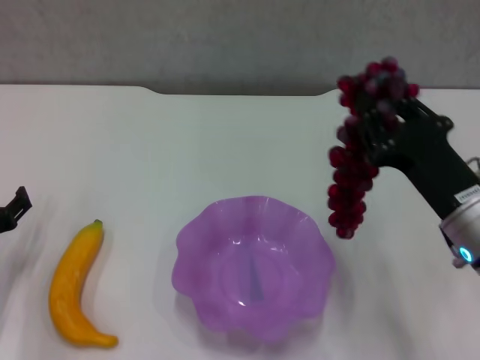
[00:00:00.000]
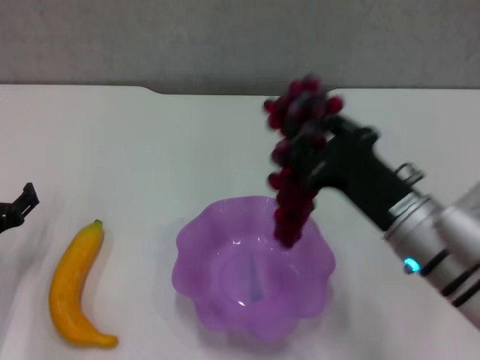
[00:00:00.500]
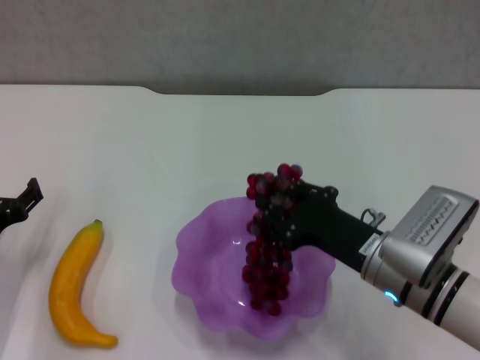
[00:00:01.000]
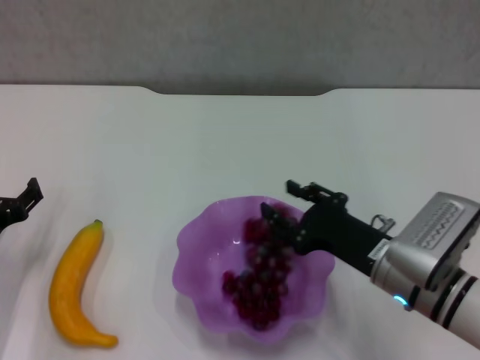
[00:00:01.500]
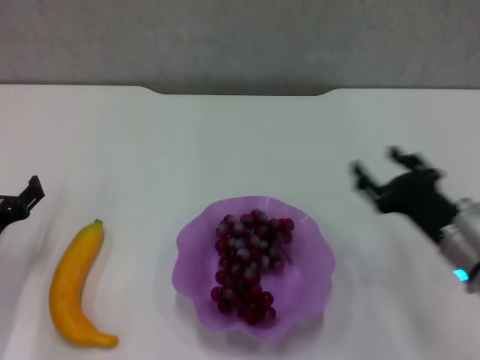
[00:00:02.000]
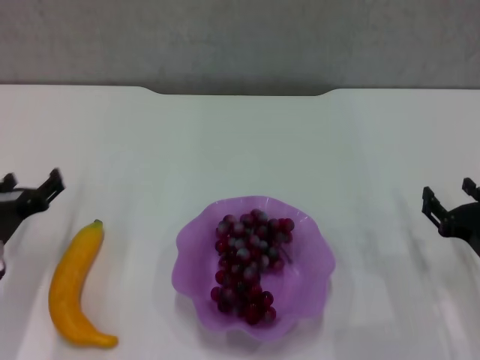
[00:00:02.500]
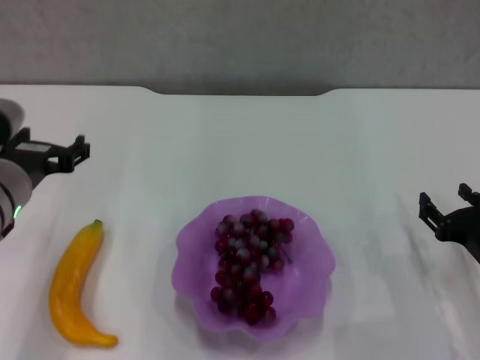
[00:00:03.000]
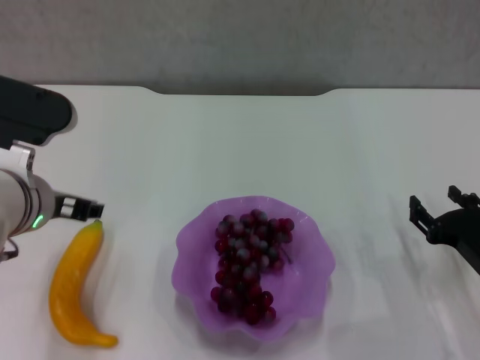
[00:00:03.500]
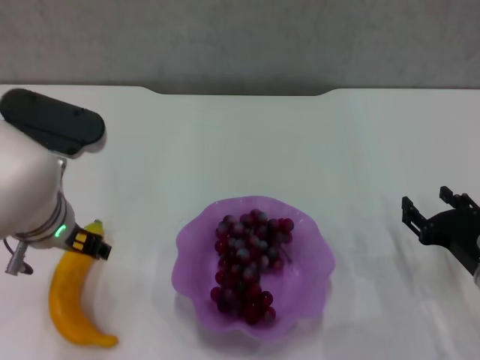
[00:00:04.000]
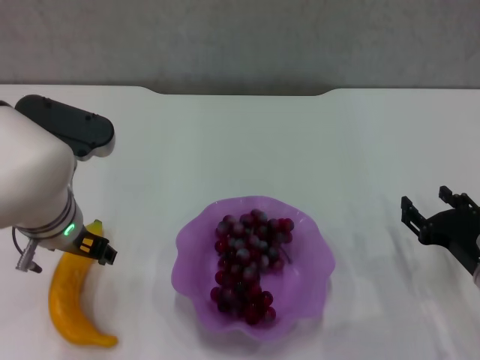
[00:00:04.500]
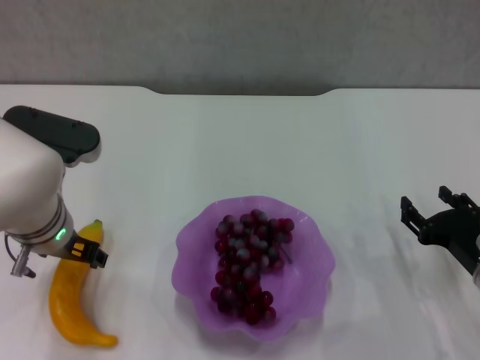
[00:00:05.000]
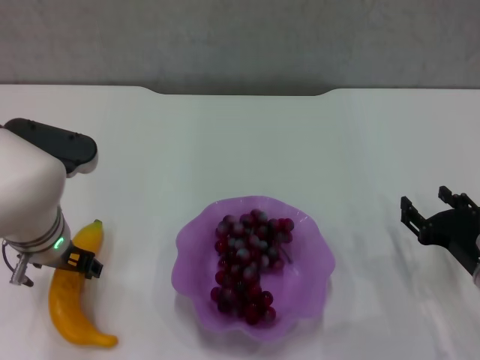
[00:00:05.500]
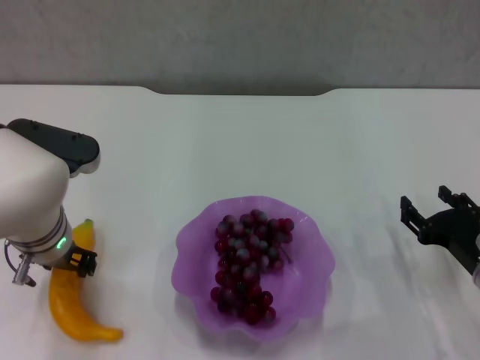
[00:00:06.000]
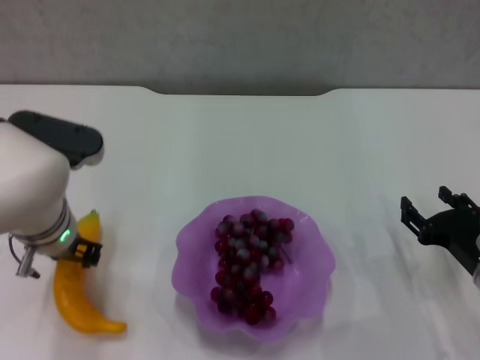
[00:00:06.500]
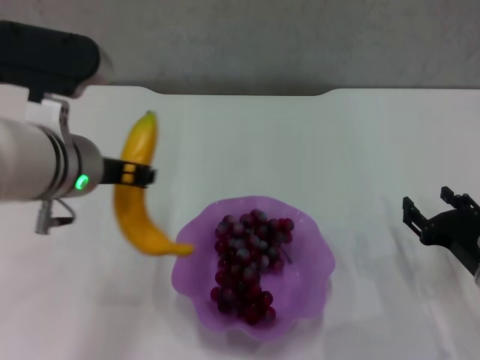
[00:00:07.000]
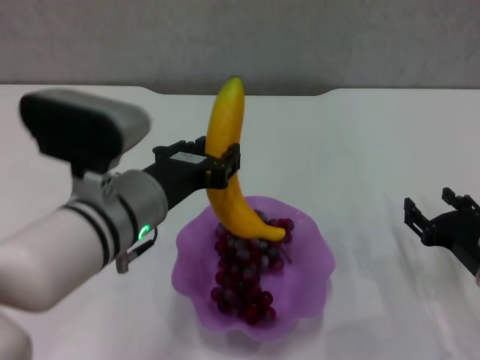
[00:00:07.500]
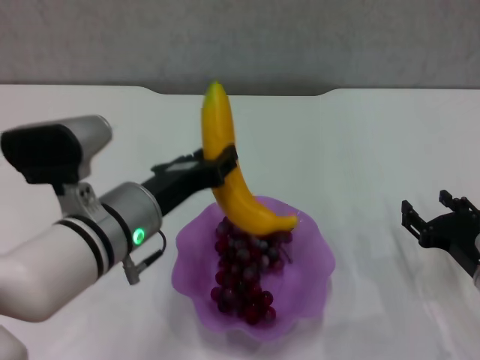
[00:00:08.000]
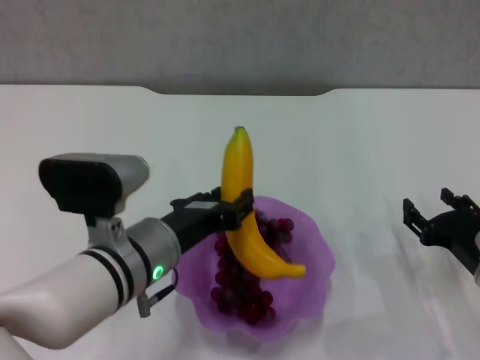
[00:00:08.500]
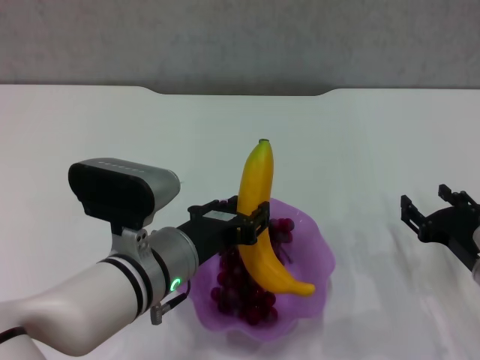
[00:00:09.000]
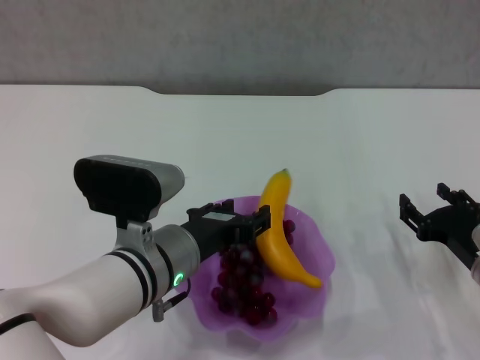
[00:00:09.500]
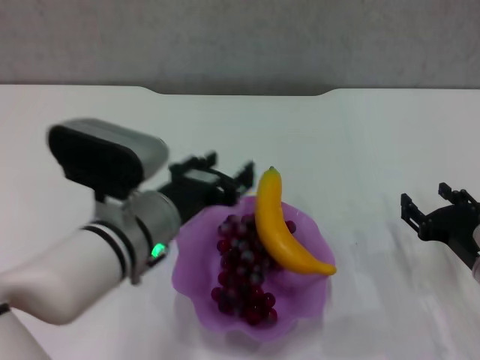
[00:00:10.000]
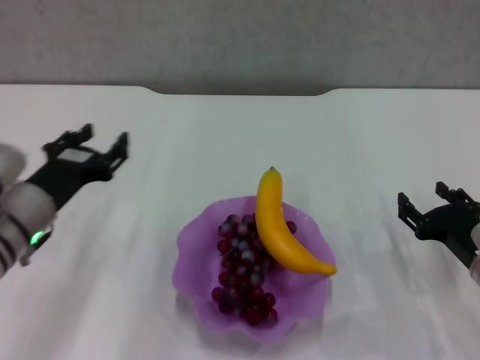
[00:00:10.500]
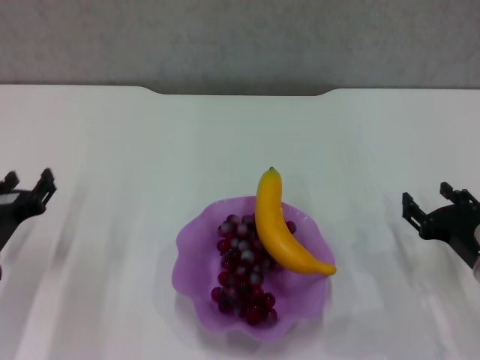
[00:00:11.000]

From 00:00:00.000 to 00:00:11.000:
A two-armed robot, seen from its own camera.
Step, from 00:00:02.000 to 00:00:06.000: Grasp the banana with left gripper.
Step, from 00:00:06.500 to 00:00:09.500: Place the banana in the purple plate with left gripper.
From 00:00:00.000 to 00:00:02.000: The right gripper is displaced downward by roughly 5 cm, and opens its fingers.
From 00:00:02.000 to 00:00:03.500: The left gripper goes approximately 20 cm upward and to the right; the right gripper travels to the right by some 5 cm.
From 00:00:03.500 to 00:00:05.500: The left gripper moves downward, roughly 5 cm.
From 00:00:05.500 to 00:00:07.500: The left gripper goes about 10 cm to the right, backward and upward, and closes.
From 00:00:07.500 to 00:00:09.000: The left gripper moves downward, roughly 5 cm.
From 00:00:09.000 to 00:00:11.000: The left gripper shifts roughly 20 cm to the left.

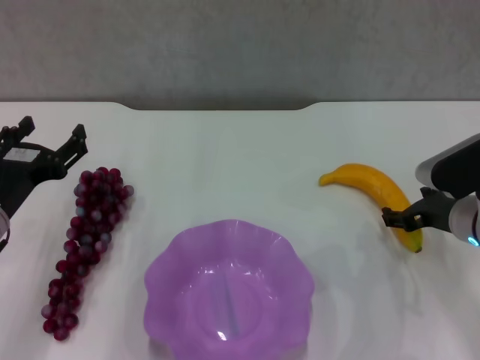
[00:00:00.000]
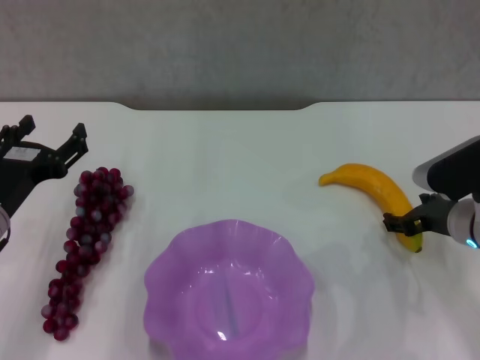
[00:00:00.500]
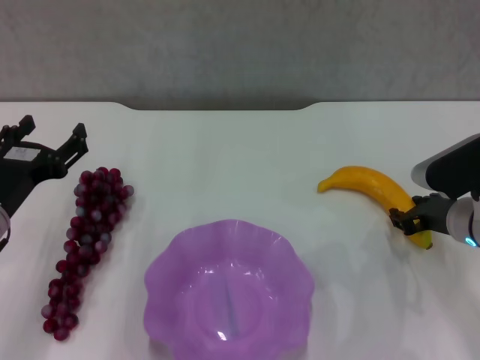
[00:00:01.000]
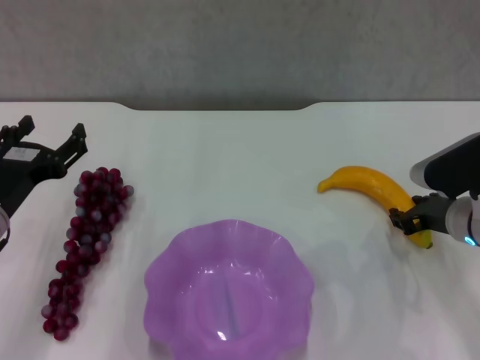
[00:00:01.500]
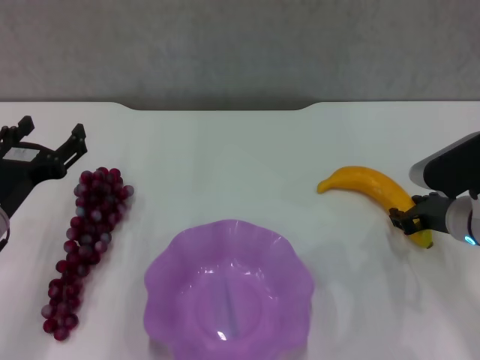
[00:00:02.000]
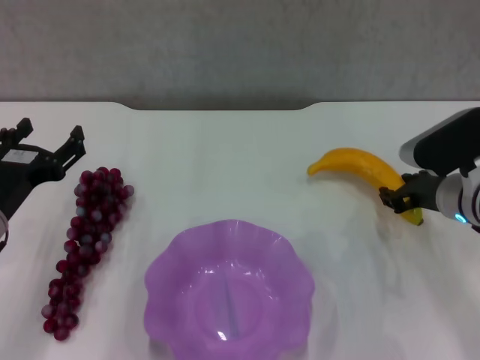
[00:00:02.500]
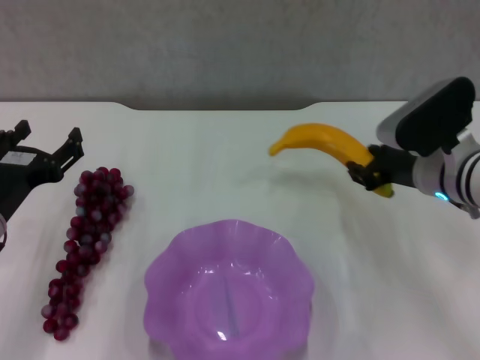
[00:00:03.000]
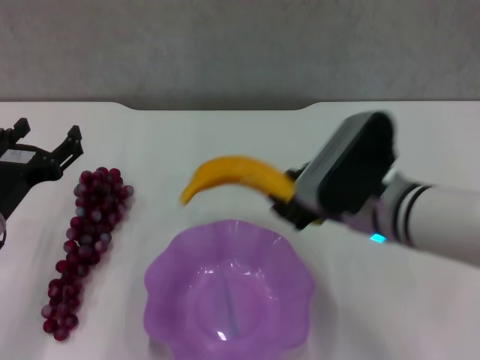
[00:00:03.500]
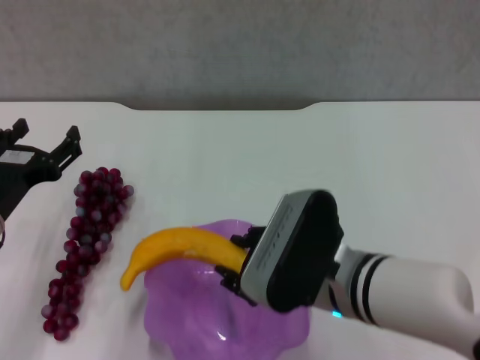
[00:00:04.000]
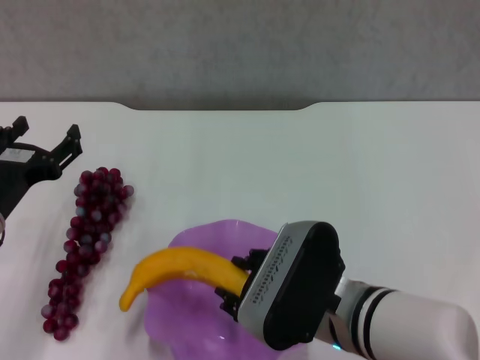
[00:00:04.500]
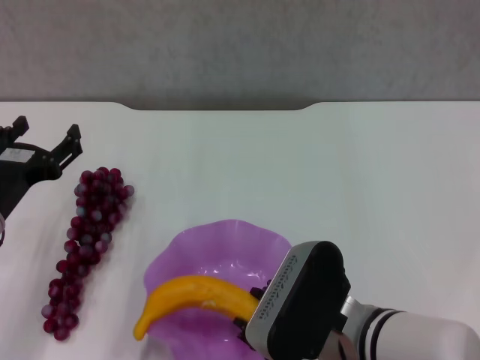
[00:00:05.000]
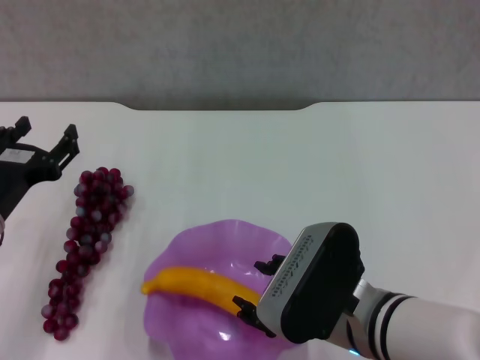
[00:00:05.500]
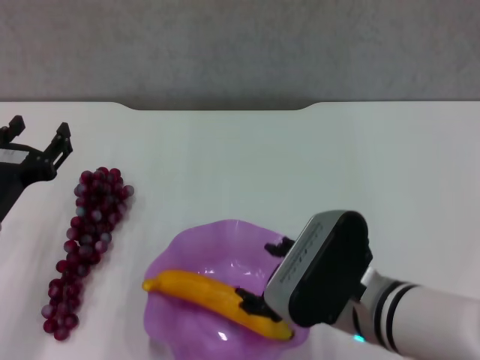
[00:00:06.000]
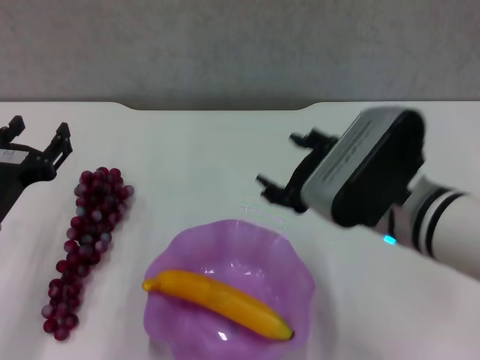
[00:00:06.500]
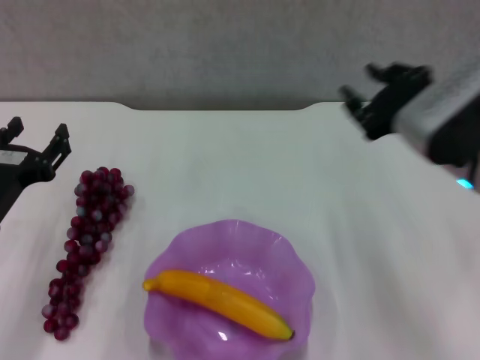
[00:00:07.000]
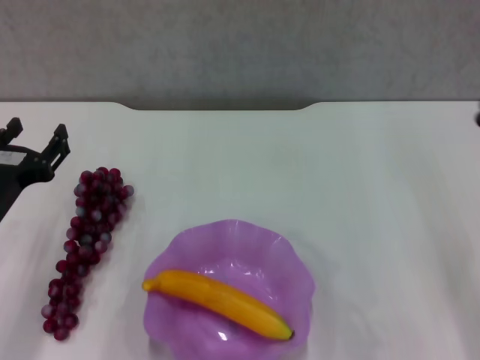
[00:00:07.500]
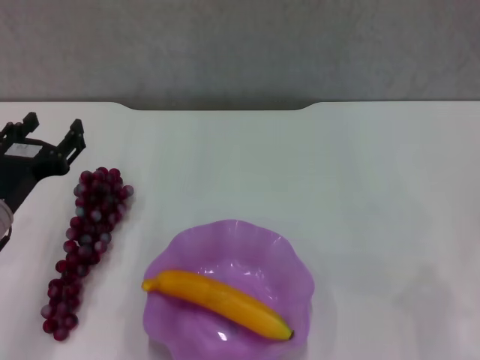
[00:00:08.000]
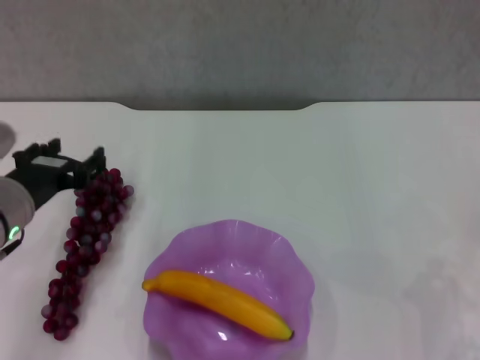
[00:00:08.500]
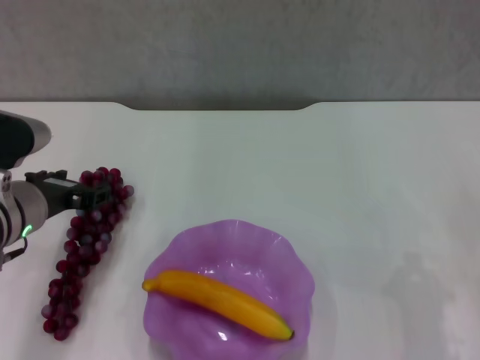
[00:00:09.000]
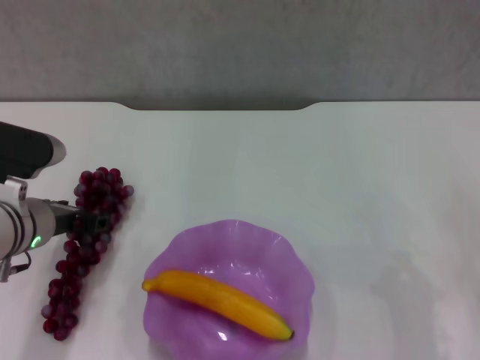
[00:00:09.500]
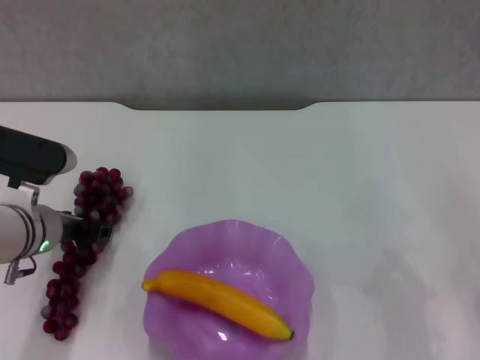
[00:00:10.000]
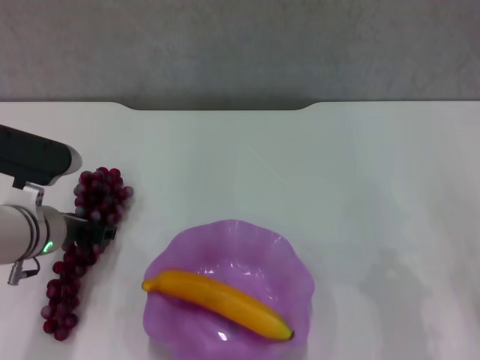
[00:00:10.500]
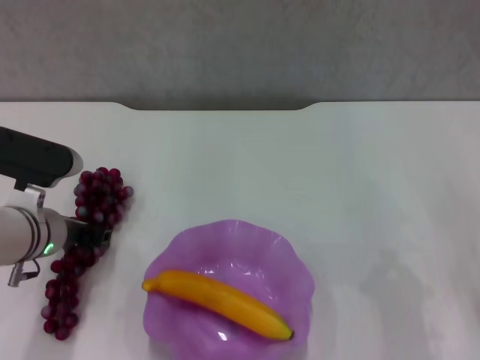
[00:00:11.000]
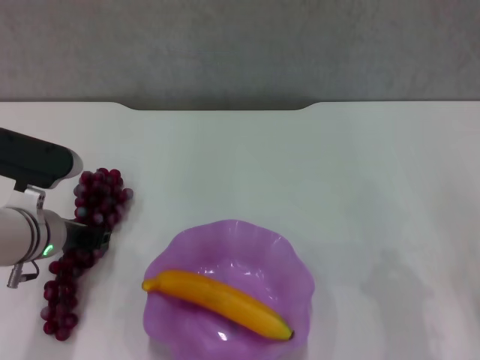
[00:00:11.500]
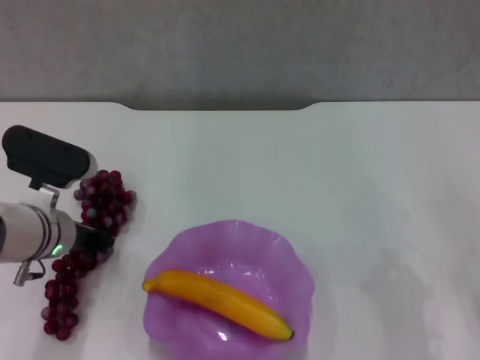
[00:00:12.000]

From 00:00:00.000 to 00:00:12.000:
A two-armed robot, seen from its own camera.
Step, from 00:00:00.000 to 00:00:01.500: Grasp the banana with right gripper.
Step, from 00:00:02.000 to 00:00:05.500: Place the banana in the purple plate with right gripper.
From 00:00:00.000 to 00:00:02.000: The right gripper closes its fingers.
From 00:00:02.000 to 00:00:04.000: The right gripper shifts some 20 cm to the left and backward.
From 00:00:04.000 to 00:00:06.000: There are only small adjustments of the grippers.
From 00:00:06.000 to 00:00:08.000: The right gripper is displaced to the right by about 20 cm, and closes.
From 00:00:08.000 to 00:00:10.000: The left gripper goes approximately 5 cm forward.
From 00:00:10.000 to 00:00:12.000: The grippers stay close to where they were, moving slightly.

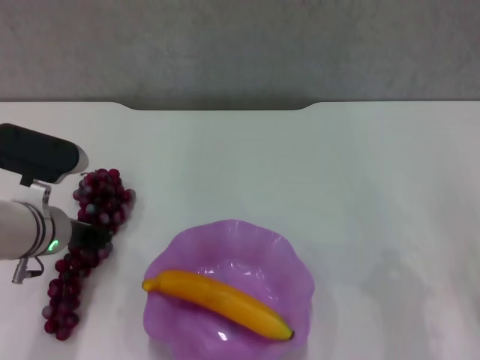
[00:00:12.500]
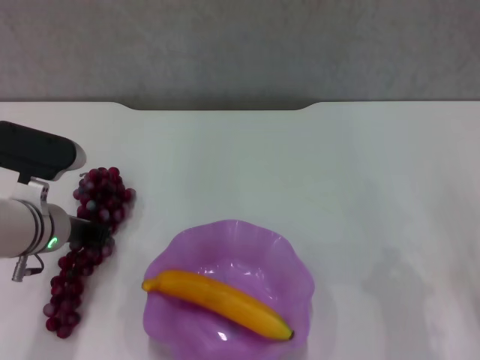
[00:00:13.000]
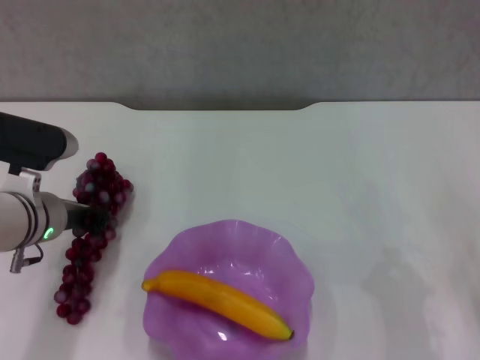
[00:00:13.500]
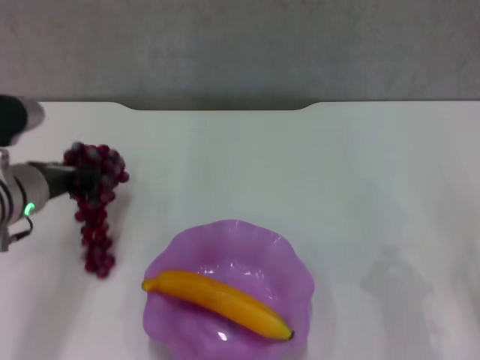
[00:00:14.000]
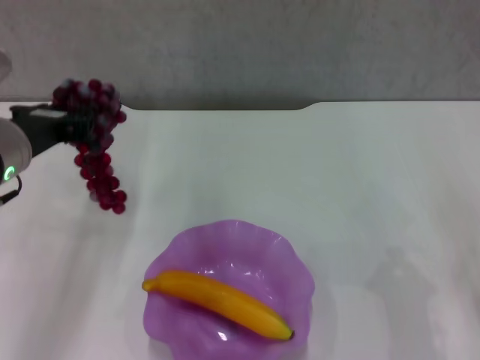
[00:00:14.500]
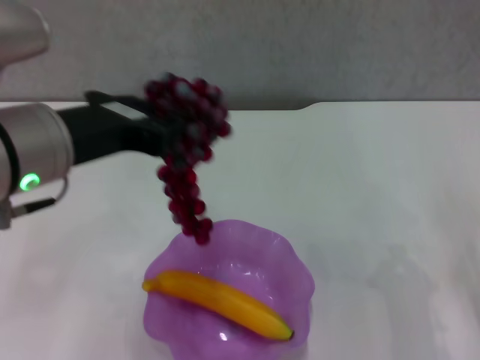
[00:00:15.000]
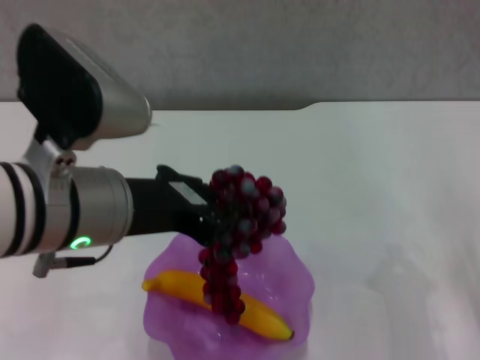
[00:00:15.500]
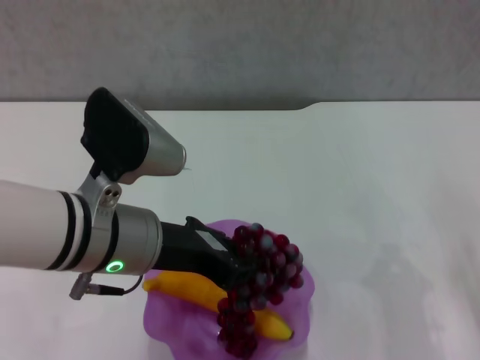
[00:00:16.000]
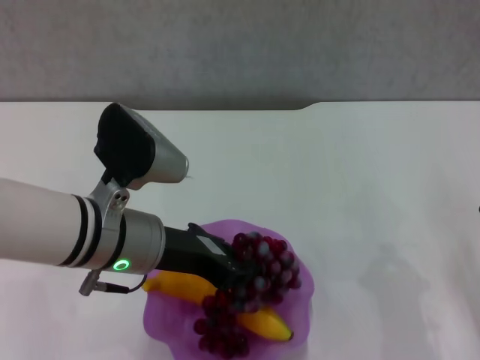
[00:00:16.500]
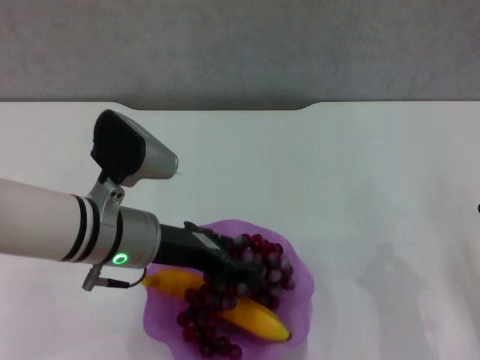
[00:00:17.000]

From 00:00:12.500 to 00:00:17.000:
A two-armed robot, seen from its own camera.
From 00:00:12.500 to 00:00:14.500: The left gripper travels upward by some 10 cm.
From 00:00:14.500 to 00:00:17.000: The left gripper moves to the right and downward, about 10 cm.
